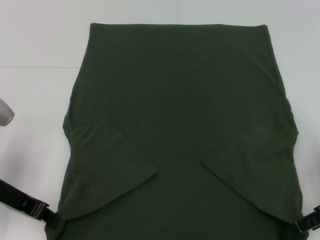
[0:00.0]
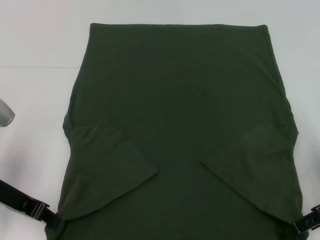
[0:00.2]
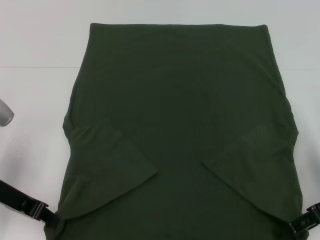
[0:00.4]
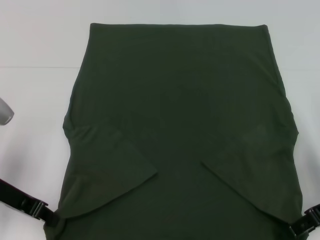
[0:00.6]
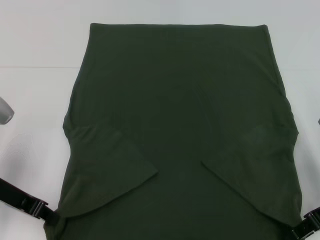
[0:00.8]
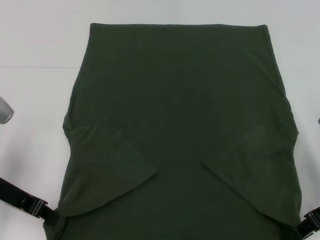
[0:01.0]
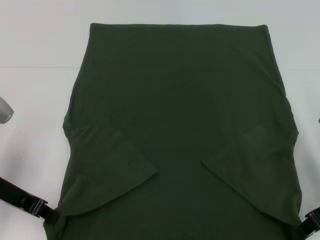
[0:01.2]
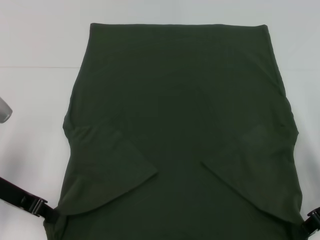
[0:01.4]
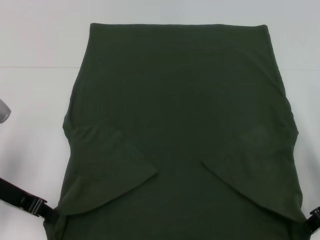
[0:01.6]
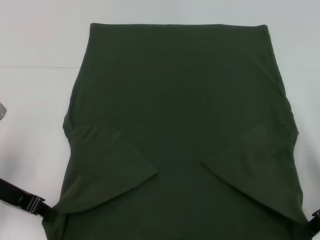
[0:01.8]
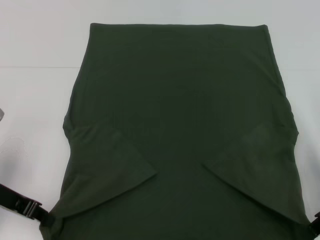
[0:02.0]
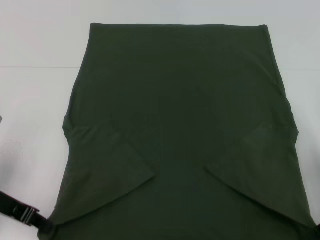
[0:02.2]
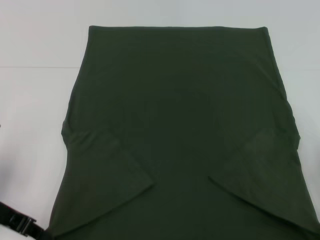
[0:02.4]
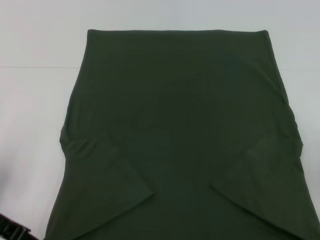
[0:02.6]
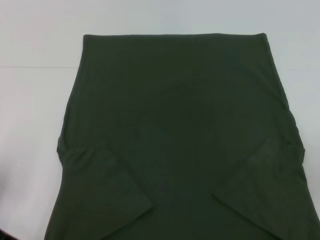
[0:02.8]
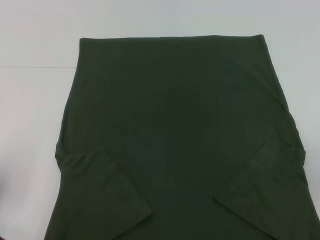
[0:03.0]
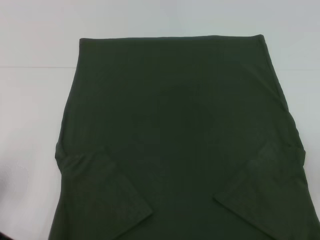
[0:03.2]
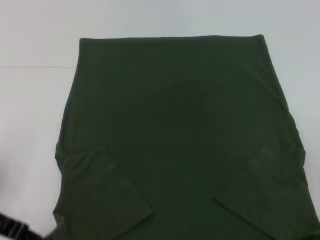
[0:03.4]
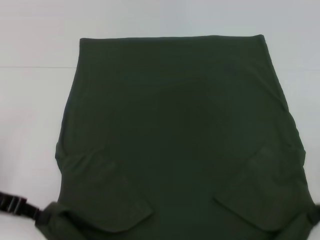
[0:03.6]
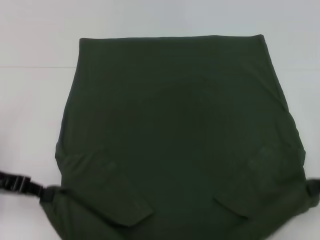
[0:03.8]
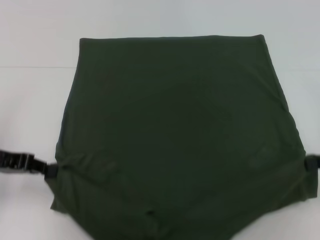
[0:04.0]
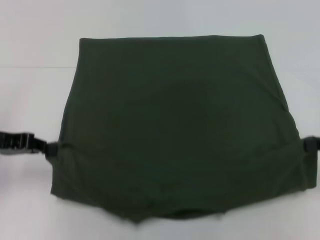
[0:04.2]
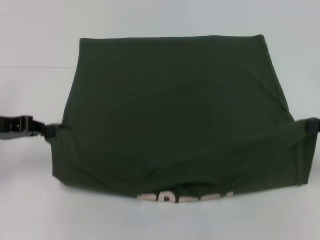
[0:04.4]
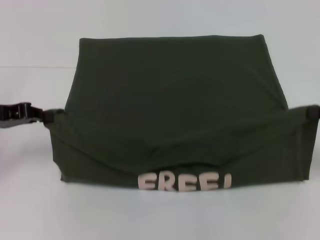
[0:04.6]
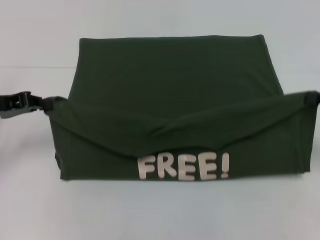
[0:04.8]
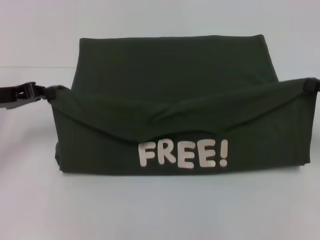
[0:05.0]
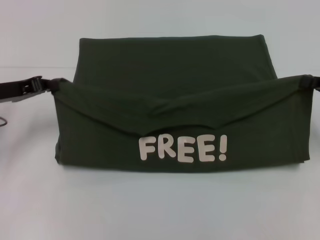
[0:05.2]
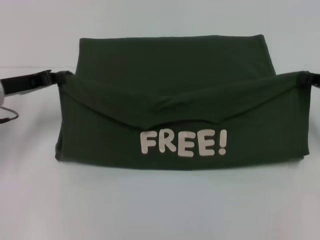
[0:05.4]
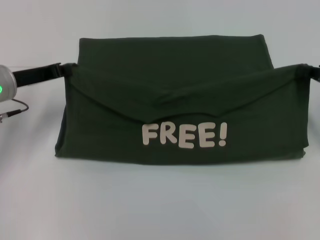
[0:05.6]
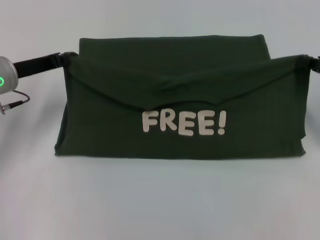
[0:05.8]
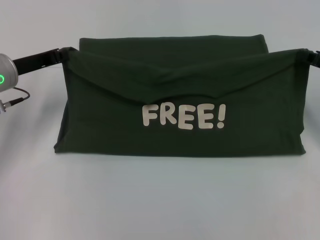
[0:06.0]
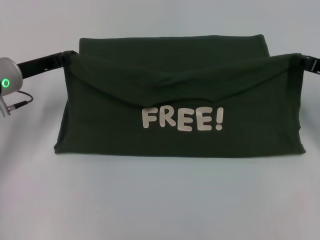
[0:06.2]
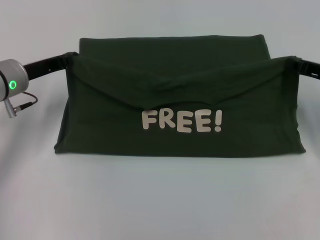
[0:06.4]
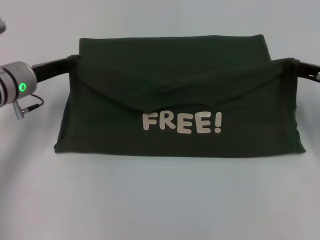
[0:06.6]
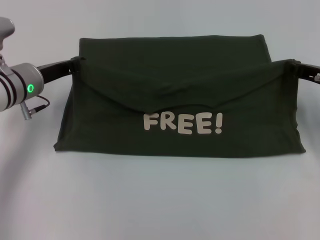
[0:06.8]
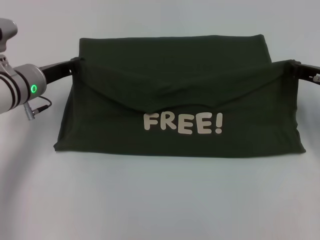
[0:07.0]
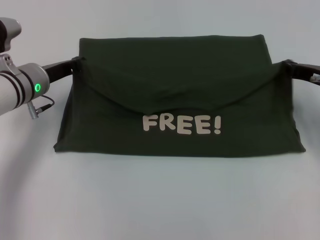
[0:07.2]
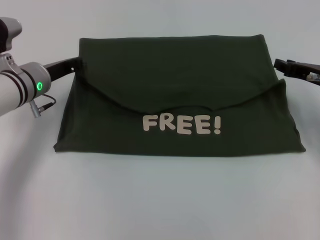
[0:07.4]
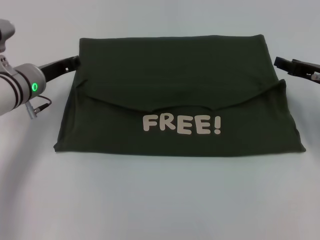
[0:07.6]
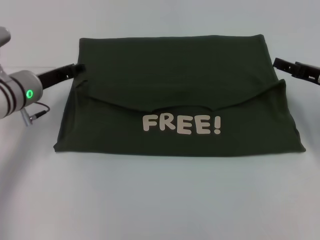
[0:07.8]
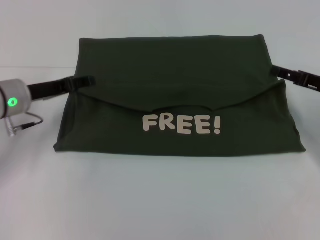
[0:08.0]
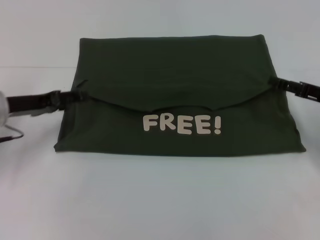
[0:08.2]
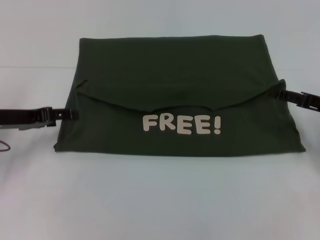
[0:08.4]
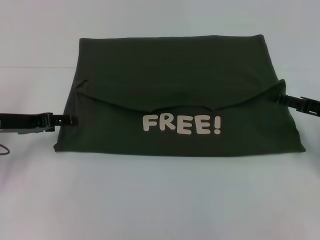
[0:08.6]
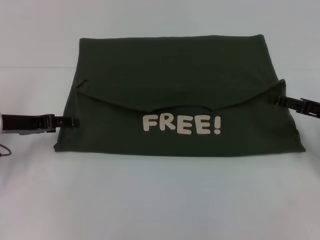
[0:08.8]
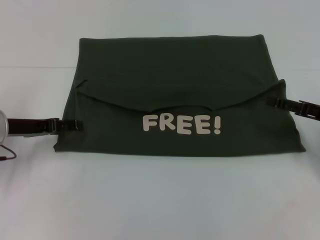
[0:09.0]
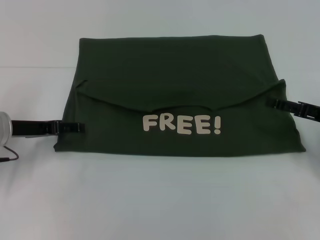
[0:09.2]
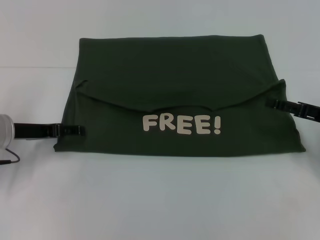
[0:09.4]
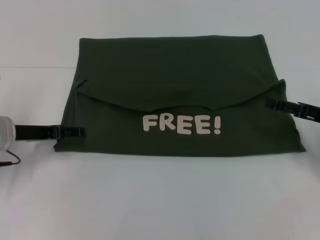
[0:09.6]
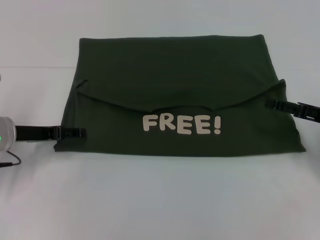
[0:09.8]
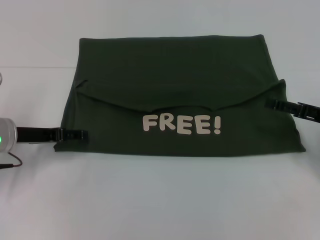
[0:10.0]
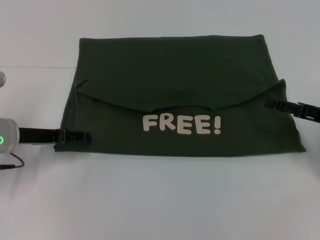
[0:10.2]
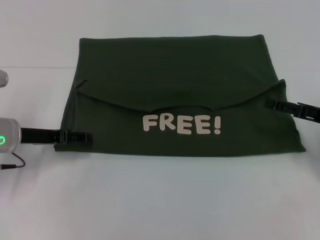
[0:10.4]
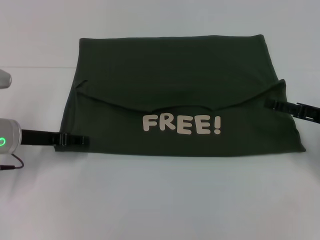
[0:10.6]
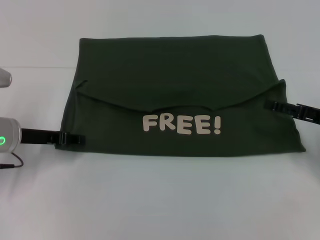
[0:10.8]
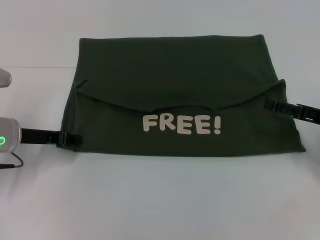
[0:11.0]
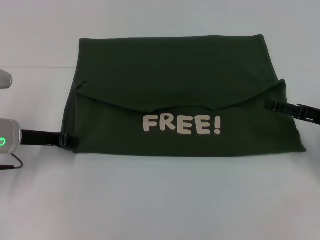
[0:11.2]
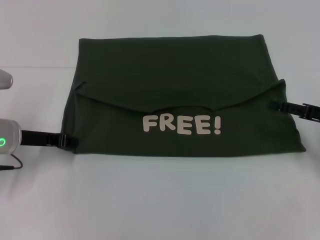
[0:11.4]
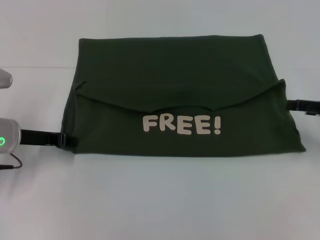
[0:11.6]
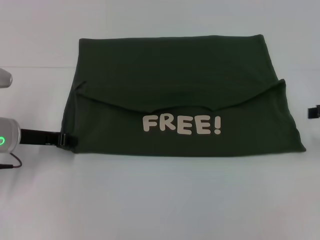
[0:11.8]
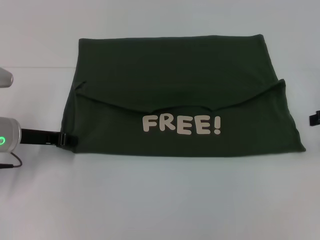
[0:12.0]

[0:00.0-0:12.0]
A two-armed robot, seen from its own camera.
Step, 0:02.0 to 0:07.4: Fold the clothes with your left hand.
Step, 0:02.0 to 0:07.4: Fold the clothes with your right hand.
0:01.6 to 0:03.0: The right gripper ends up roughly 5 cm from where it was.
0:03.0 to 0:04.4: The left gripper moves forward, about 5 cm, while the right gripper ends up about 5 cm from where it was.
0:04.4 to 0:06.0: The left gripper is displaced forward and to the right by about 10 cm, while the right gripper moves forward, approximately 10 cm.
0:06.0 to 0:07.6: The left gripper shifts by roughly 5 cm.
0:07.6 to 0:09.0: The left gripper shifts approximately 10 cm to the left and backward, and opens its fingers. Meanwhile the right gripper shifts approximately 5 cm backward, and opens its fingers.
0:09.0 to 0:10.4: The grippers move only a little.
0:10.4 to 0:12.0: The left gripper closes its fingers, while the right gripper moves upward, some 10 cm.

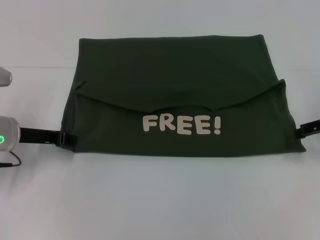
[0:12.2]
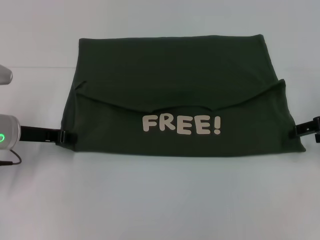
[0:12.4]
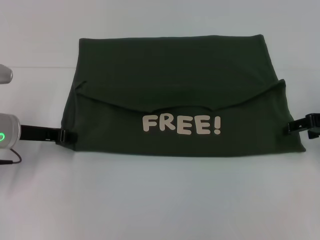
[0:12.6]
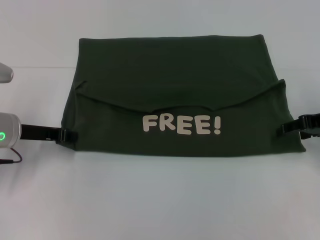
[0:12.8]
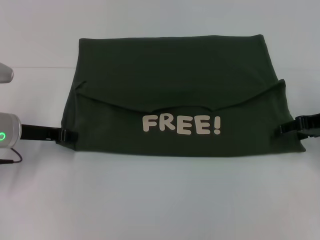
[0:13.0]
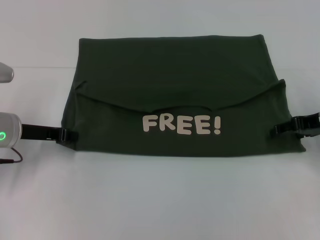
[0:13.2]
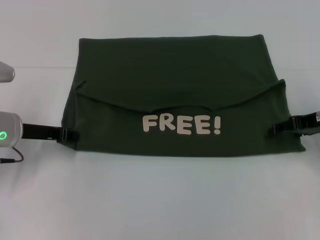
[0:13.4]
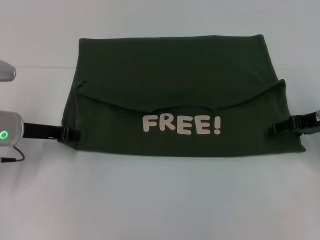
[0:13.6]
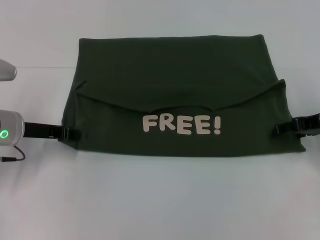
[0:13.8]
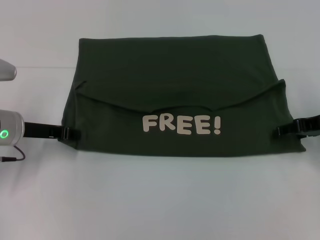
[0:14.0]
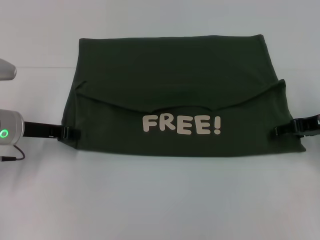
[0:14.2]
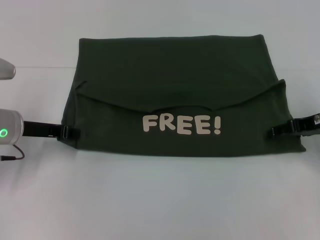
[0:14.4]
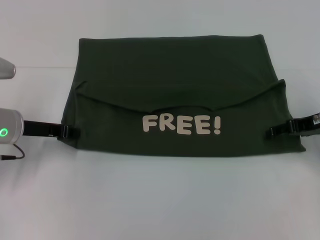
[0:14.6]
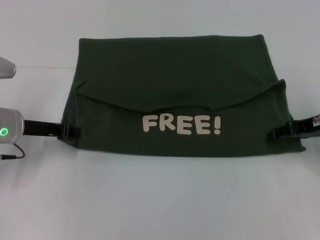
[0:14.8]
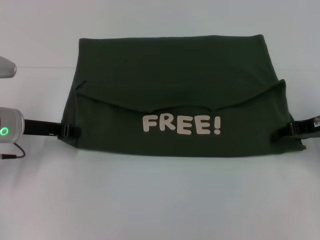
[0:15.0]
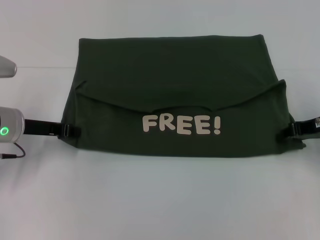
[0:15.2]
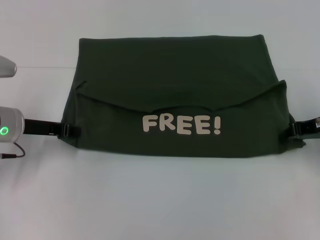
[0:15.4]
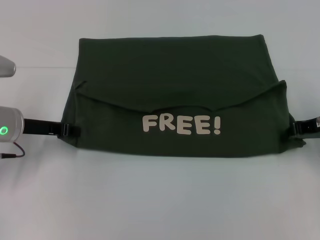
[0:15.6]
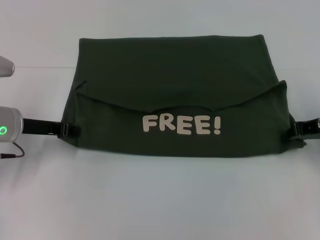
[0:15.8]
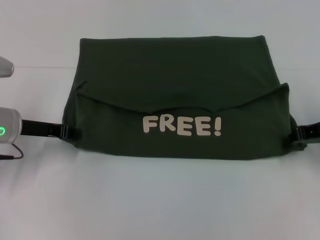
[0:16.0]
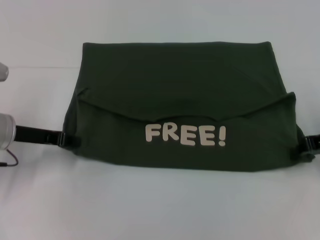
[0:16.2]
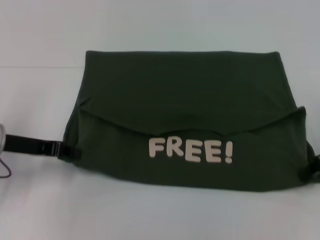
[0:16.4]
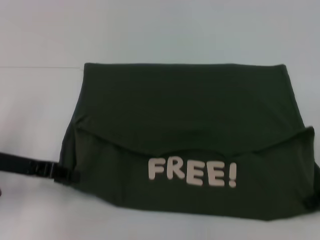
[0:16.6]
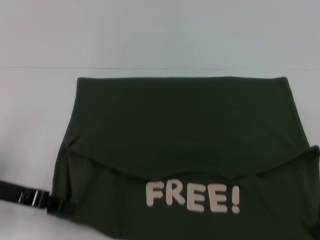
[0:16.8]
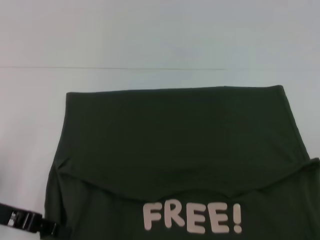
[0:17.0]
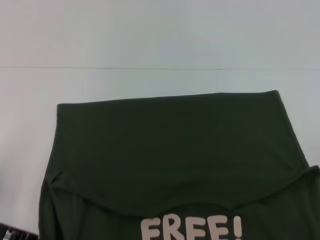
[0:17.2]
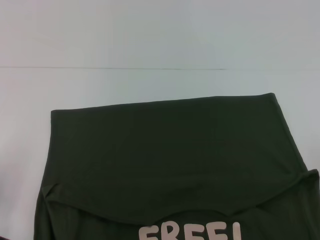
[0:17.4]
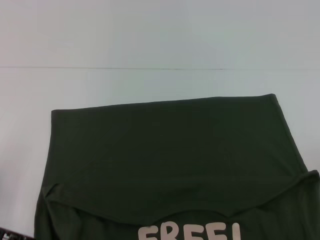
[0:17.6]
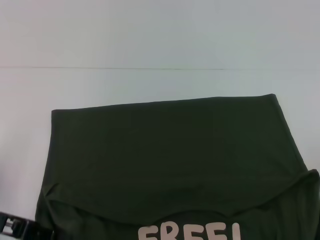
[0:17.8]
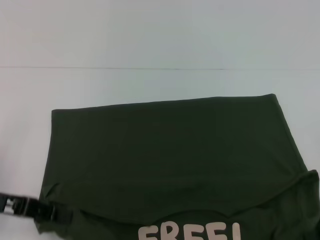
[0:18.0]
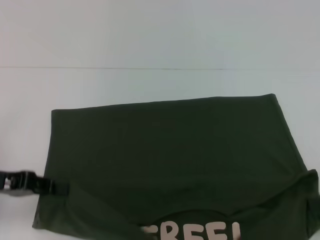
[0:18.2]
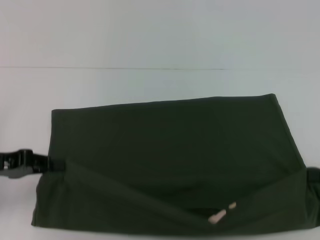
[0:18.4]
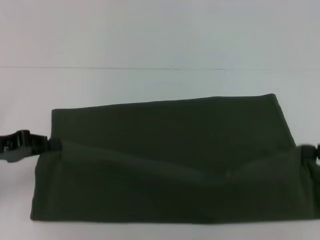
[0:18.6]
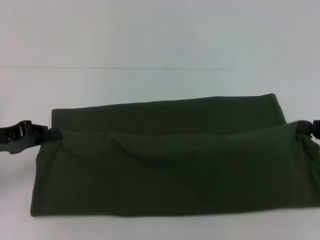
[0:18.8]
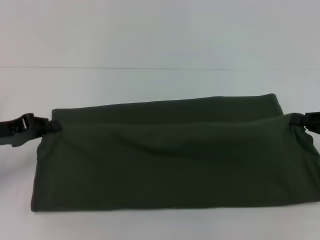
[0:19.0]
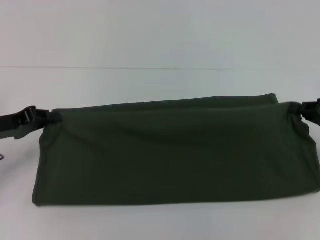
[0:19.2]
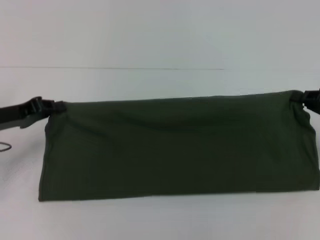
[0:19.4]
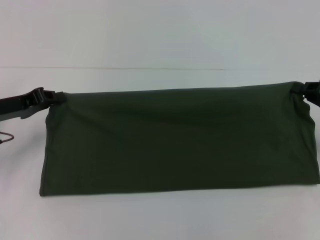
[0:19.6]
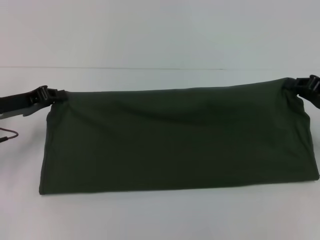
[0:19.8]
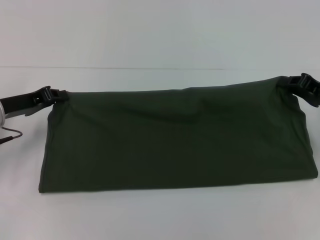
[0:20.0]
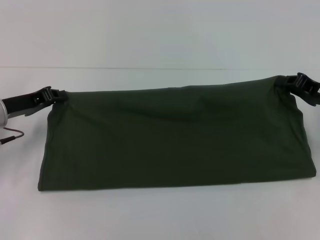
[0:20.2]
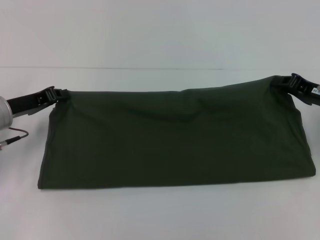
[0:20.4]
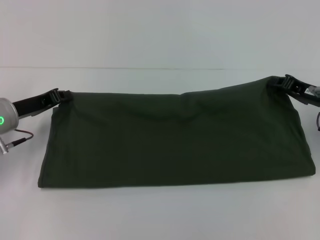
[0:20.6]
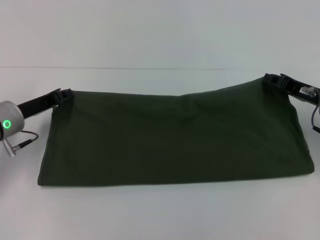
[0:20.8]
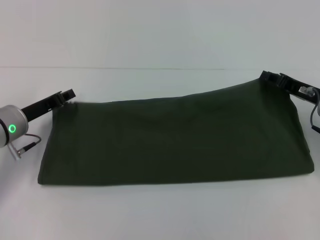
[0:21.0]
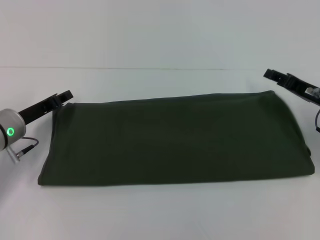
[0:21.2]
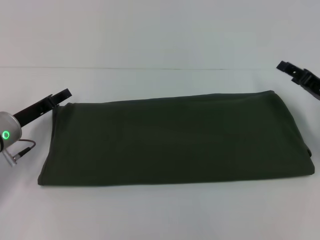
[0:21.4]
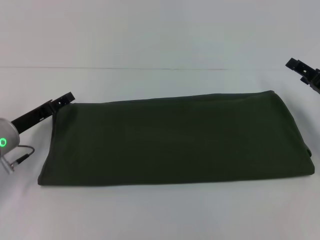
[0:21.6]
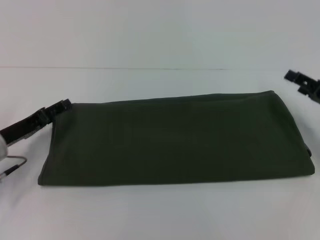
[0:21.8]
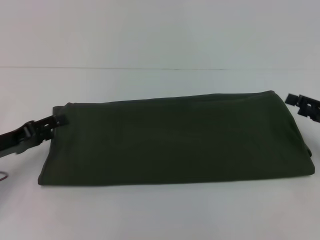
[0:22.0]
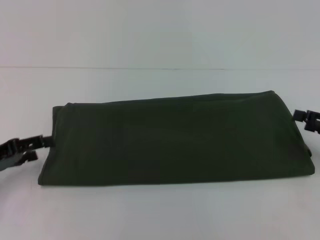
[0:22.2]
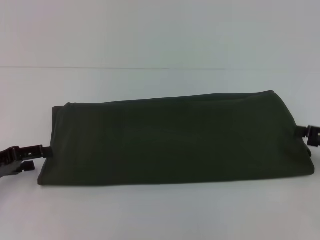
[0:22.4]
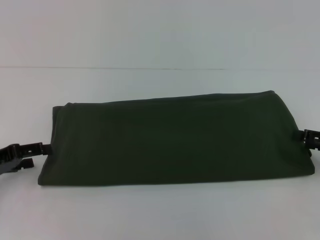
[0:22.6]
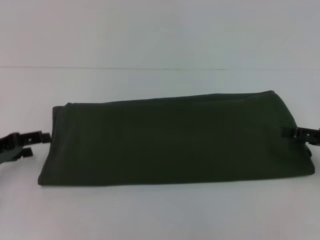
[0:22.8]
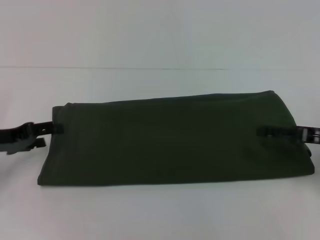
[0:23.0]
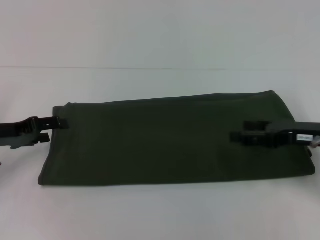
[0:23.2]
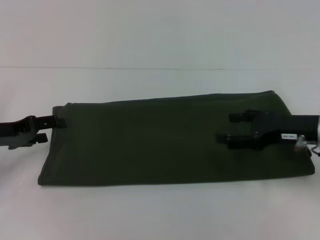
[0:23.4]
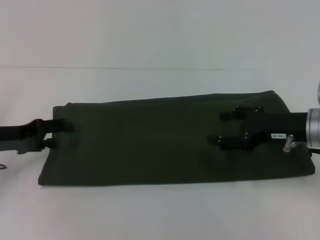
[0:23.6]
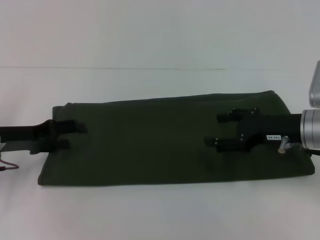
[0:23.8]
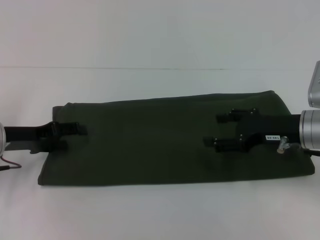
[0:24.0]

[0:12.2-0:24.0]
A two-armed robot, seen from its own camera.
Step, 0:12.2 to 0:17.4: Pull the clothes with your left hand.
Step, 0:12.2 to 0:17.4: Pull the clothes with your right hand.
Step, 0:17.6 to 0:21.0: Fold the clothes with your right hand.
0:12.2 to 0:13.6: The right gripper shifts by some 5 cm.
0:13.6 to 0:15.2: The right gripper closes.
0:15.2 to 0:16.6: The two grippers go about 5 cm backward. The right gripper closes.
0:16.6 to 0:18.2: The right gripper travels backward by approximately 5 cm.
0:18.2 to 0:19.6: The grippers both shift forward by roughly 10 cm.
0:19.6 to 0:21.0: The right gripper goes about 5 cm to the left; the left gripper changes place by about 5 cm.
0:21.0 to 0:22.6: The right gripper shifts approximately 10 cm to the right and backward, and opens its fingers. Meanwhile the left gripper goes roughly 10 cm to the left and backward, and opens its fingers.
0:22.6 to 0:24.0: The left gripper shifts some 5 cm forward. Meanwhile the right gripper travels to the left by some 15 cm.
